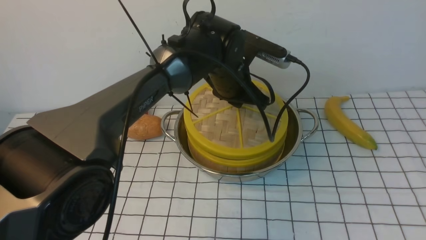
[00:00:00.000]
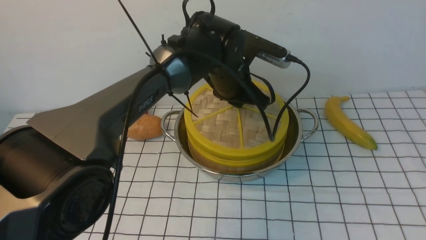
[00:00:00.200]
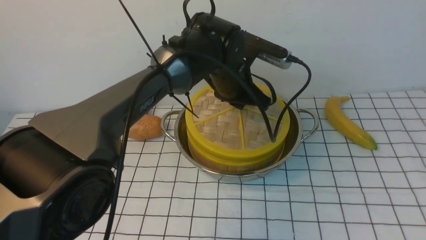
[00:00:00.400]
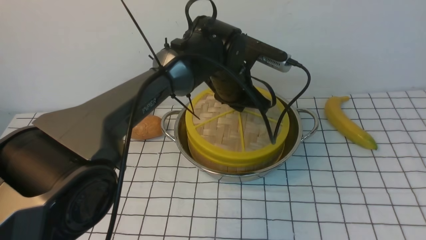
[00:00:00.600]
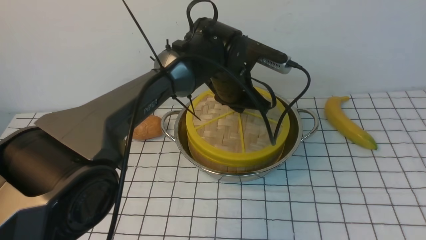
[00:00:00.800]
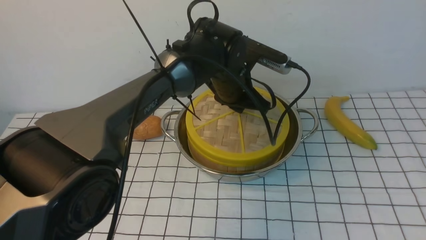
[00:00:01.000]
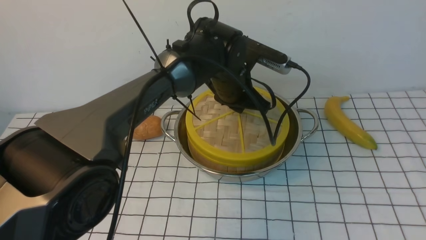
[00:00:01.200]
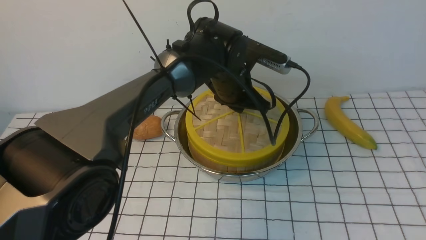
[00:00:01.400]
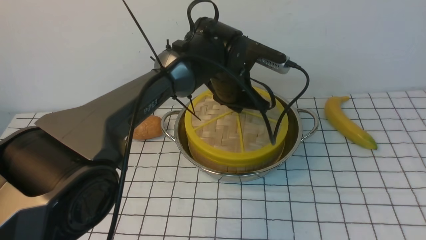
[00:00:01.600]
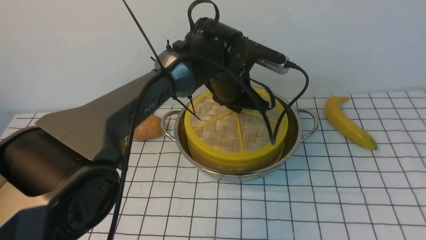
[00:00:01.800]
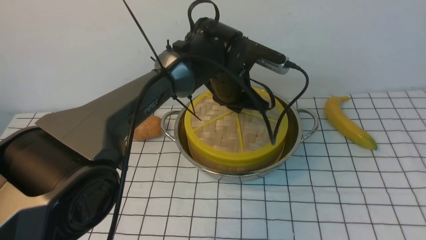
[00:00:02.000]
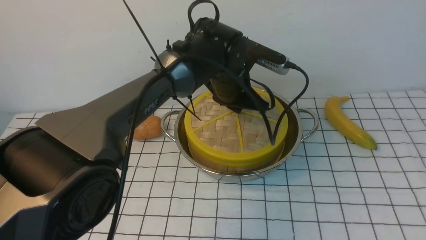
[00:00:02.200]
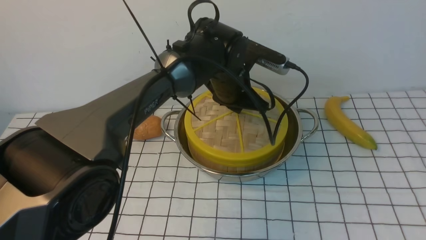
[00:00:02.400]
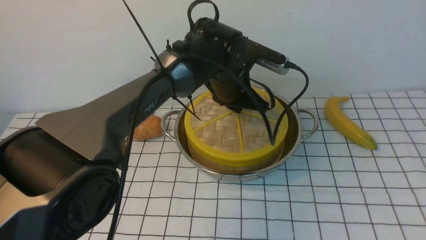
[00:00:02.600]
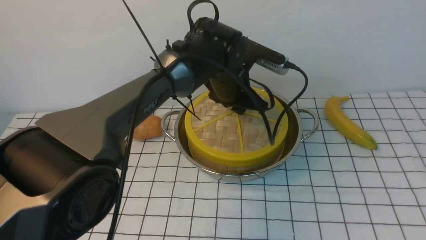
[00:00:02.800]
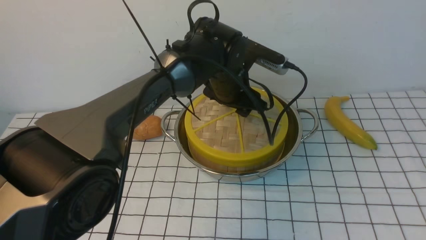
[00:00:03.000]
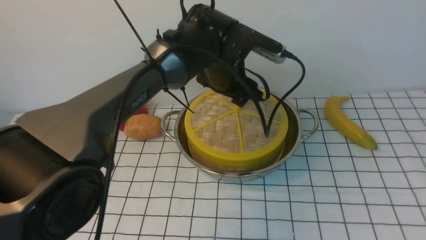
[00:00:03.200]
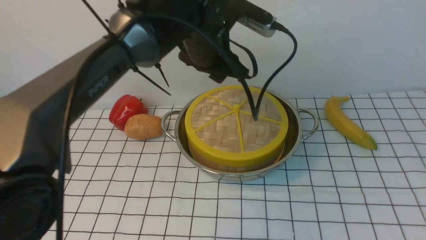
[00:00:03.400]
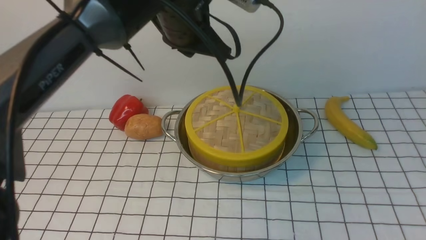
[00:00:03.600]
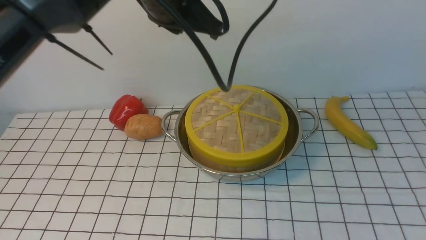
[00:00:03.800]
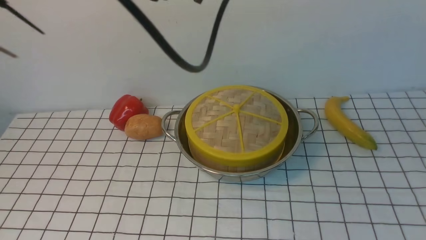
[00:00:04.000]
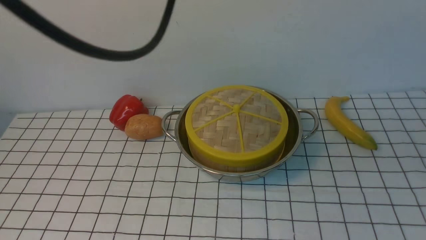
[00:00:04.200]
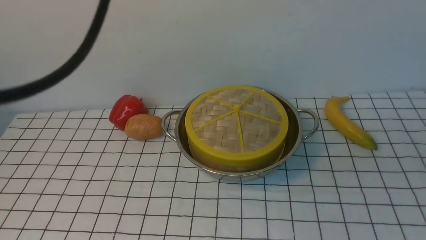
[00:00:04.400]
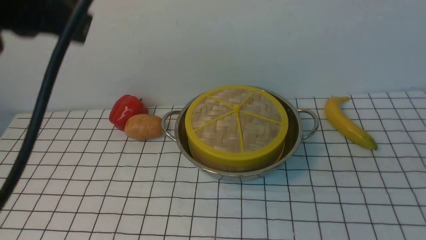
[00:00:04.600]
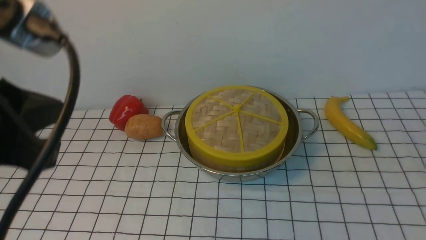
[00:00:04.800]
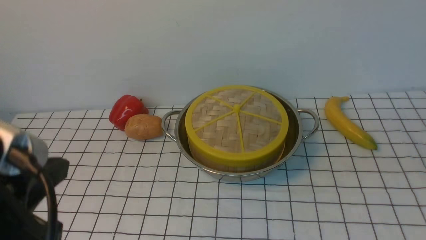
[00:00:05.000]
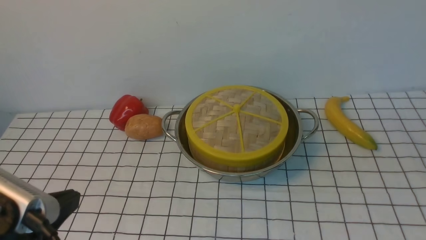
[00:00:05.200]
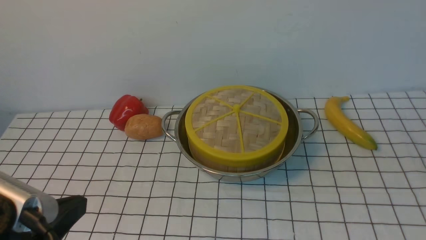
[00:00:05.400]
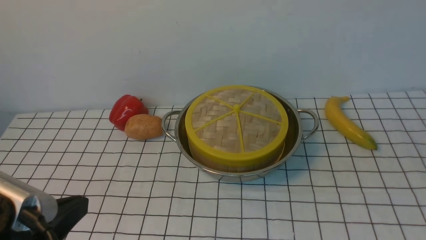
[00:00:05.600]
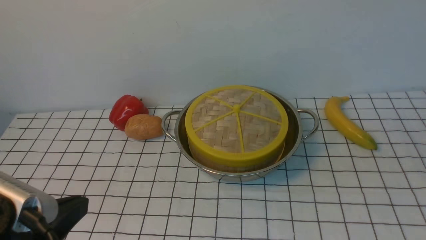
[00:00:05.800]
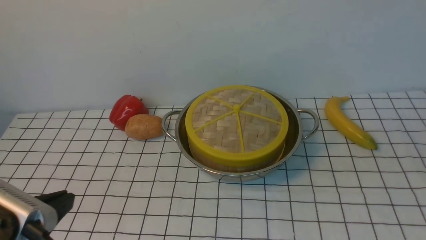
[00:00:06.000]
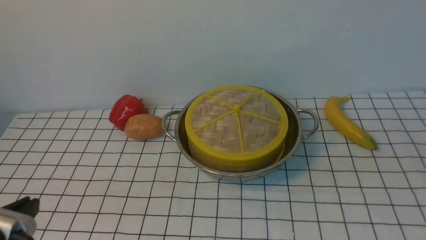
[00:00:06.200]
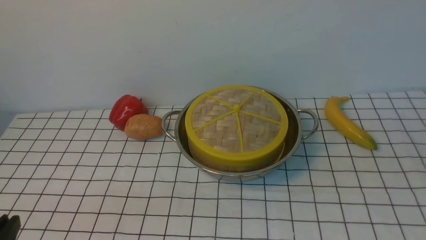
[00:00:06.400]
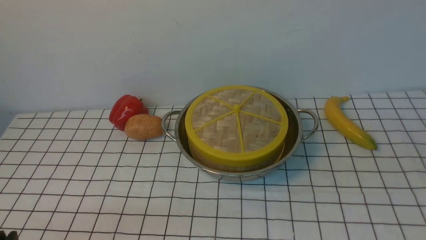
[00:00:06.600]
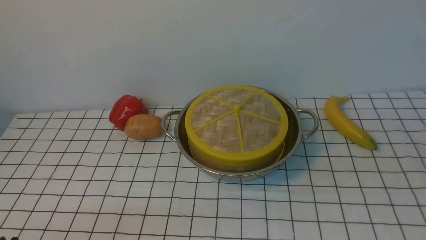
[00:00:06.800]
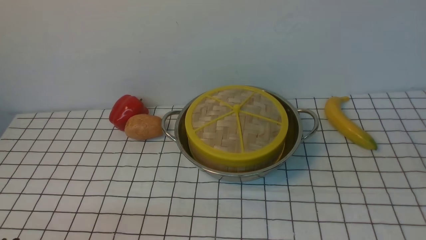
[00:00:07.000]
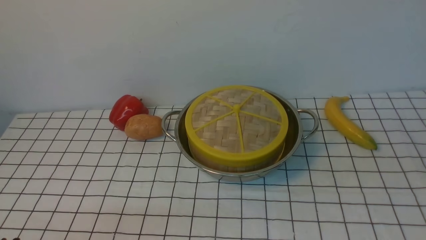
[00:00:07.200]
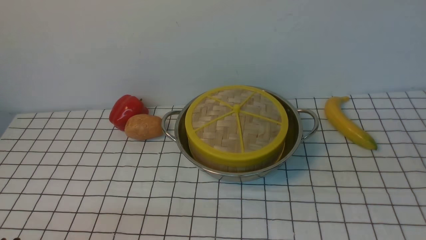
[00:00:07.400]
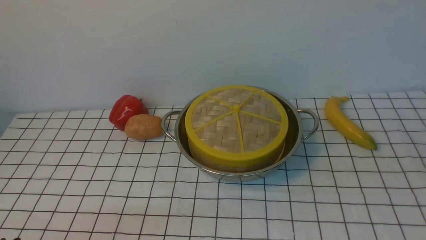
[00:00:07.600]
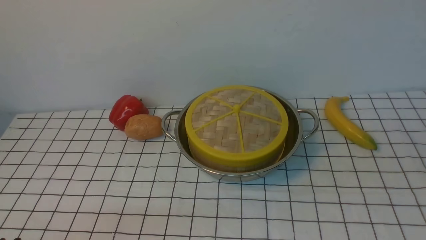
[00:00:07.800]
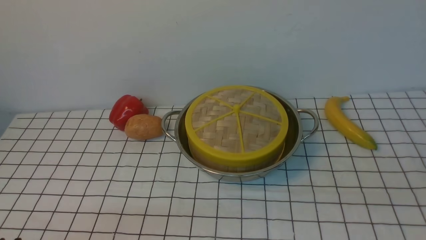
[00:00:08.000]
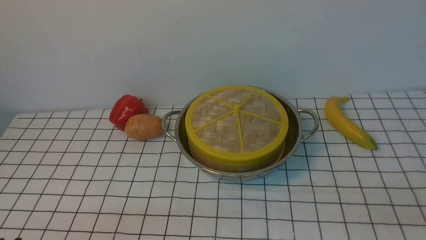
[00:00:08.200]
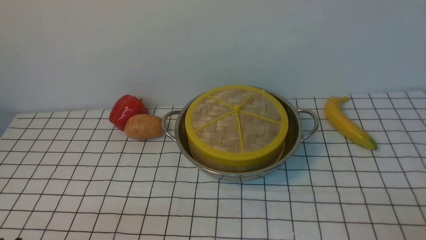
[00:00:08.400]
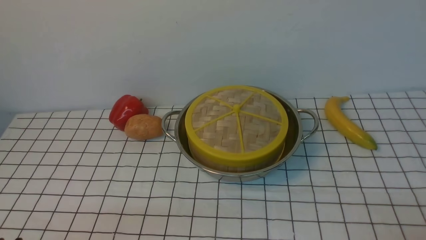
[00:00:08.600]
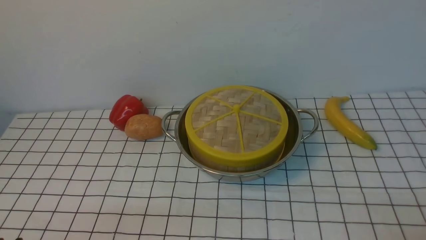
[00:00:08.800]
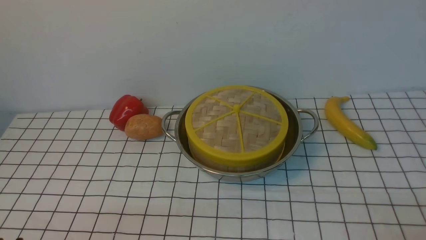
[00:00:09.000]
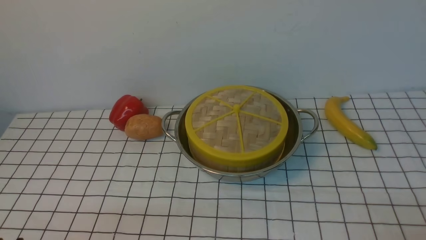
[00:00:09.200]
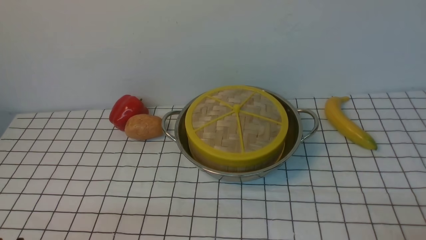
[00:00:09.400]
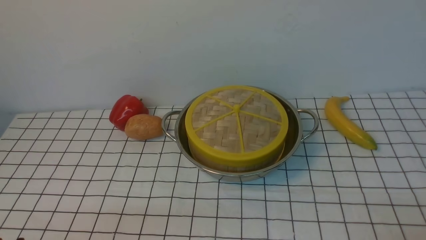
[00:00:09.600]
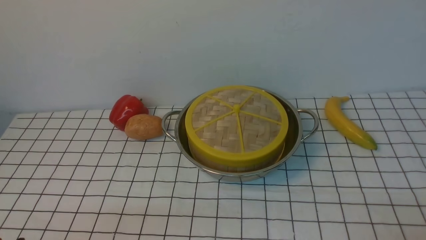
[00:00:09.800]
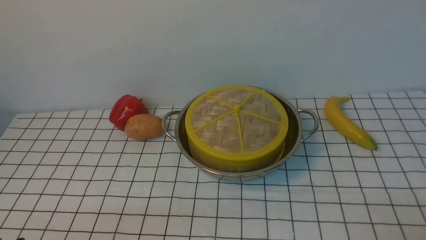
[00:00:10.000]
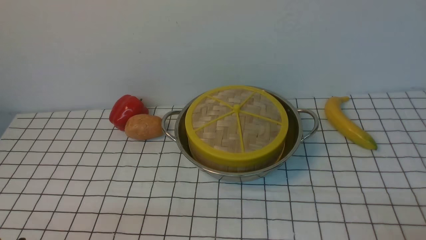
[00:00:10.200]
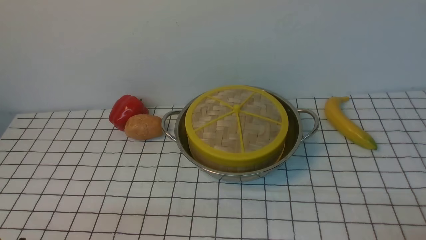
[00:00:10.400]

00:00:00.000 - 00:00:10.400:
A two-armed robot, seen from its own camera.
Task of the whole recording: place the steamer in the pot on the white tablecloth, and put the lid on the steamer.
Step, 00:00:00.000 - 00:00:03.200: use the left arm to place the steamer lid on the steamer.
00:00:00.000 - 00:00:01.400: Both grippers stay put.
00:00:01.400 - 00:00:03.000: The left gripper opens up.
00:00:03.000 - 00:00:04.400: The left gripper moves upward, backward and to the left, some 35 cm, and closes its fingers. Meanwhile the right gripper heads downward, covering some 20 cm, and closes up.
00:00:04.400 - 00:00:06.000: The left gripper is displaced downward and backward by approximately 25 cm.
00:00:06.000 - 00:00:07.400: The left gripper heads downward, covering about 10 cm.
00:00:09.000 - 00:00:10.400: The two grippers keep their place.
